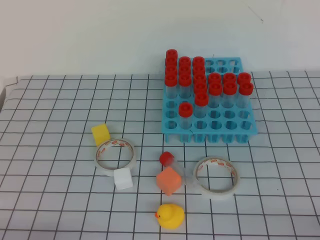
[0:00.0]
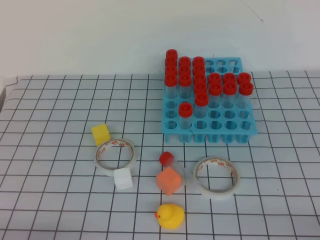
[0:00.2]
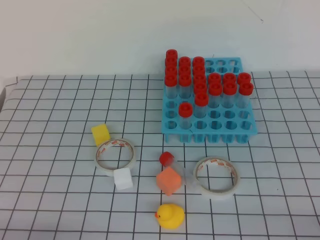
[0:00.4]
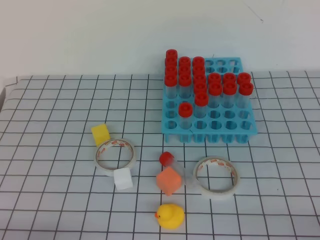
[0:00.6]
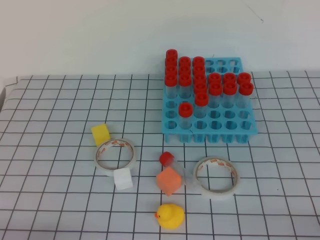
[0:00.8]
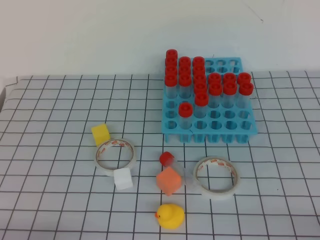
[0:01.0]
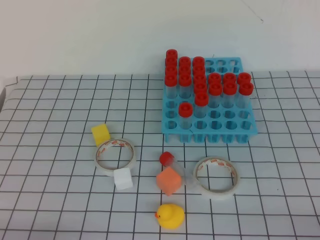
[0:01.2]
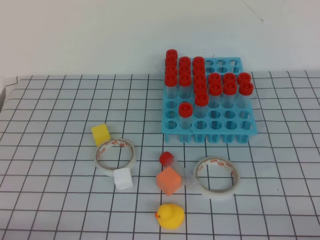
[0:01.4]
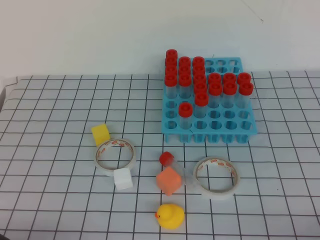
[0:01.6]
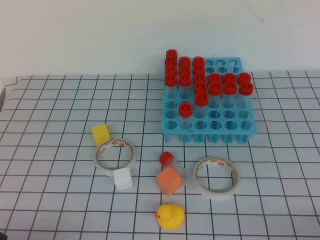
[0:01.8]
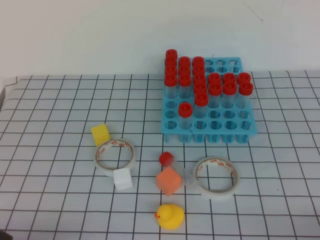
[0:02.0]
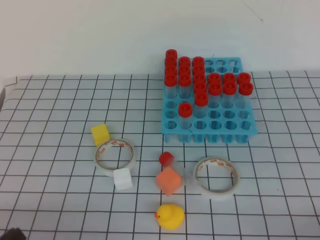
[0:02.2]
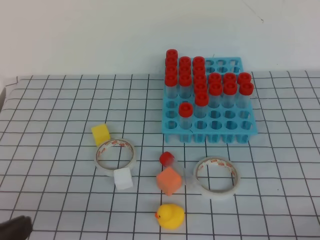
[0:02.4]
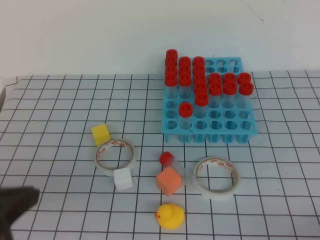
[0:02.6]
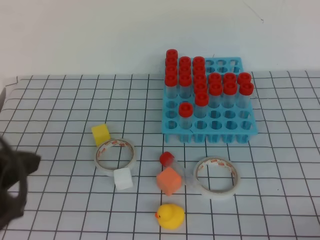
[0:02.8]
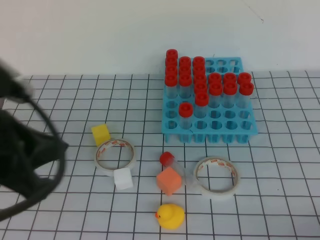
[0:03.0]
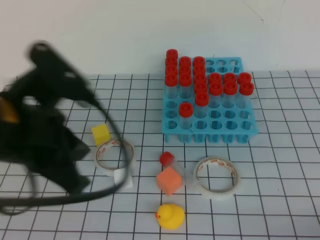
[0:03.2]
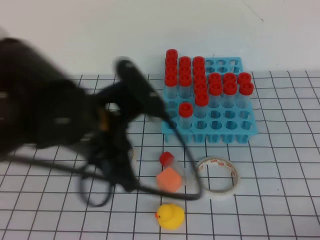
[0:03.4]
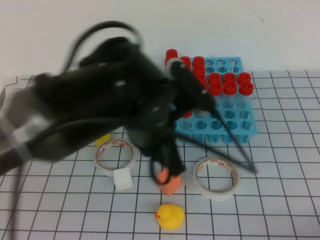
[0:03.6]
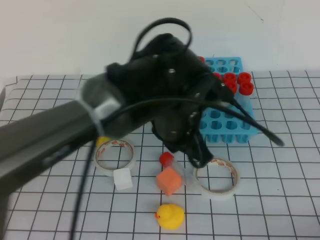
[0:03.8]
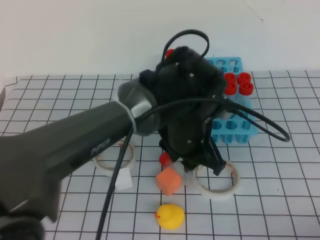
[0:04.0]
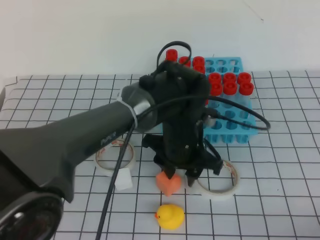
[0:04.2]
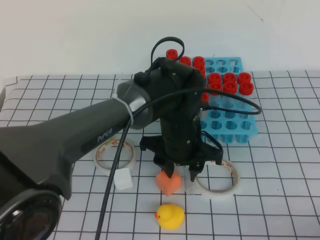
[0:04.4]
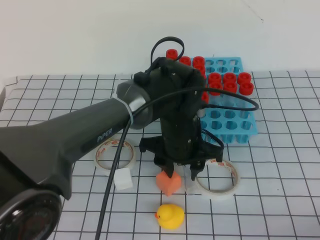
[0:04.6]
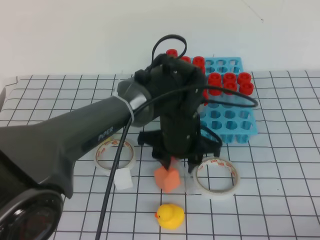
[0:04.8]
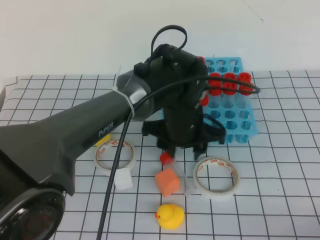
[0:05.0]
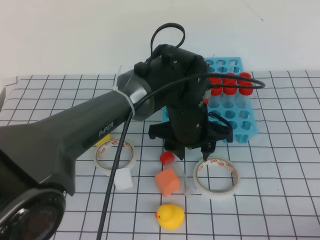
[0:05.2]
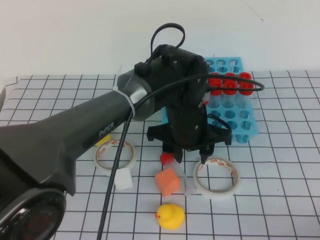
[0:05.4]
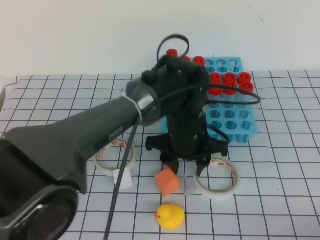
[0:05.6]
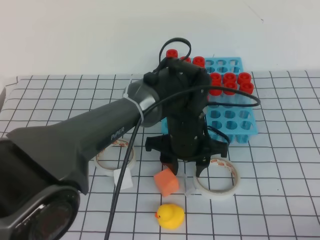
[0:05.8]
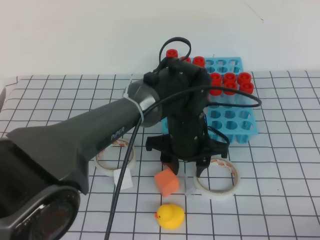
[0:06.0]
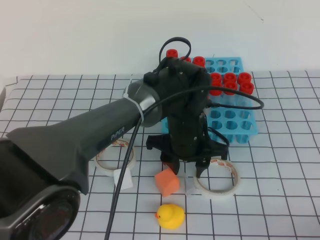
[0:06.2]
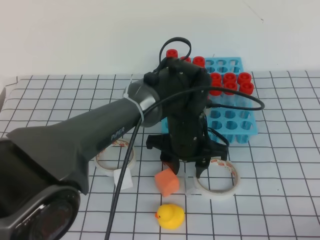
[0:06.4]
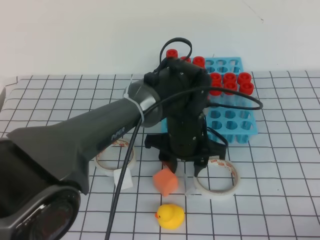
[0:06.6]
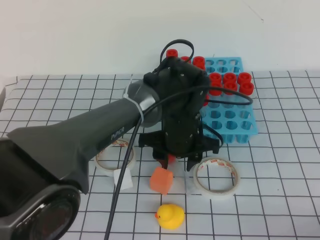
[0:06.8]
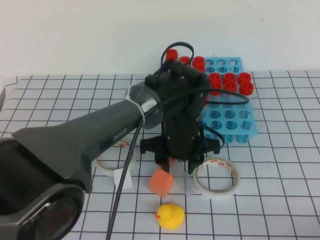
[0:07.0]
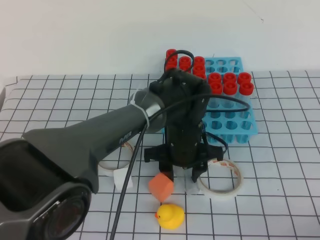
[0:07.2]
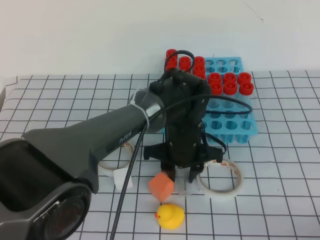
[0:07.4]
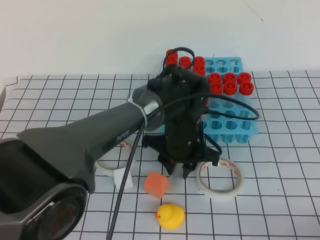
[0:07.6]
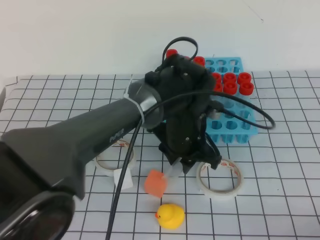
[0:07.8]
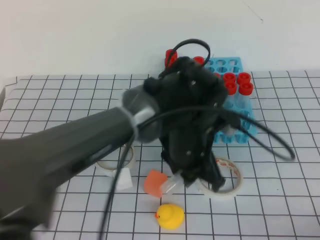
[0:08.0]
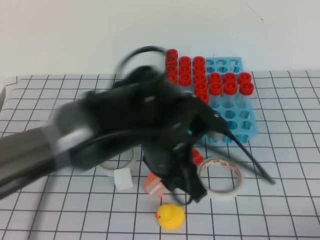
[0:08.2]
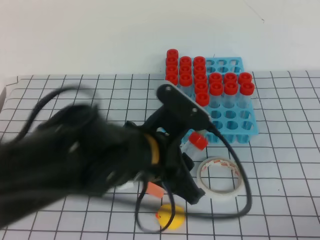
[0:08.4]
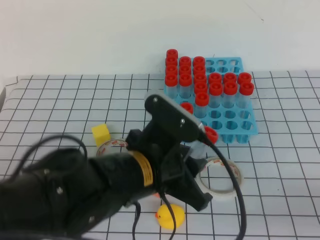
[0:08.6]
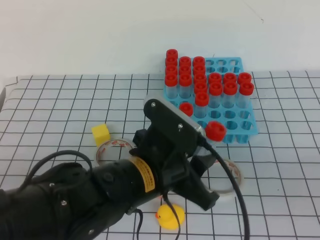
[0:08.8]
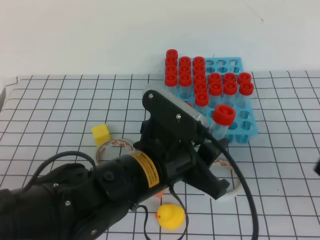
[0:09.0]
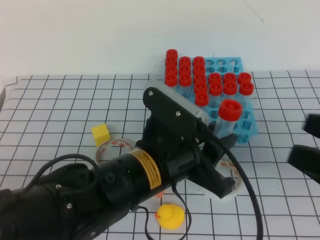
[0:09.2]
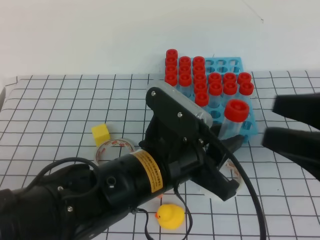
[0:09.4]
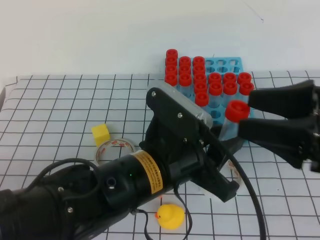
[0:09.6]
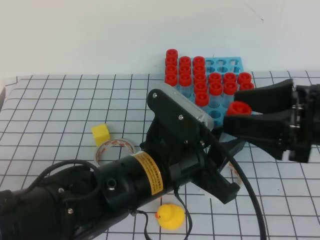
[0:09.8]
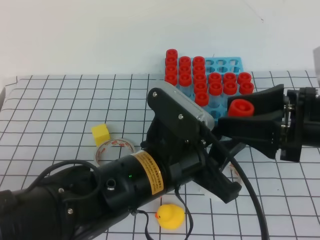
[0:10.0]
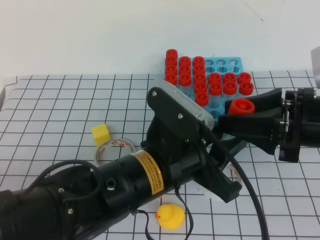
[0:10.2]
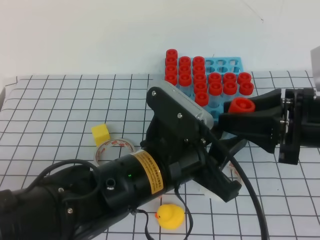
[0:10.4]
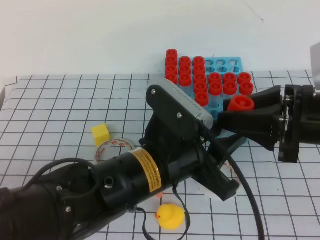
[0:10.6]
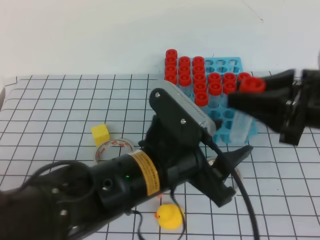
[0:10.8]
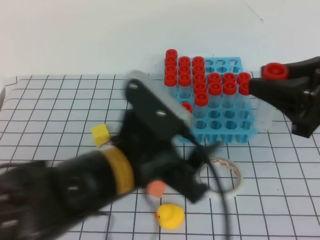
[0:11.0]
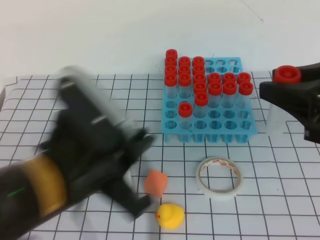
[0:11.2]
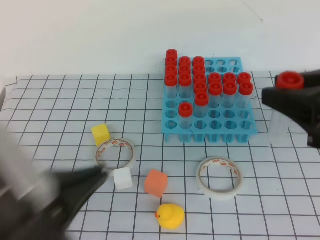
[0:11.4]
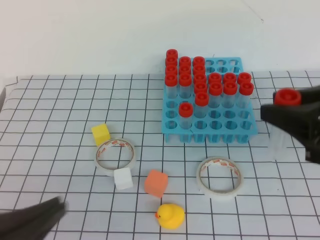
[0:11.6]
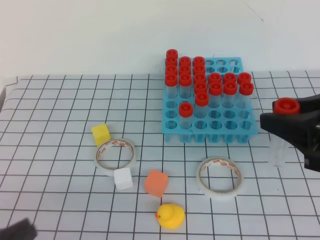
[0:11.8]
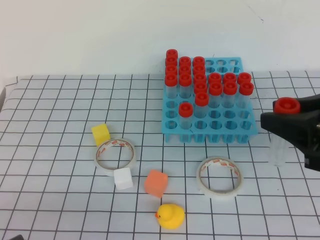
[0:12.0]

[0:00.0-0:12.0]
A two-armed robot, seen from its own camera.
0:01.6 to 0:03.0: The left gripper goes some 20 cm upward and forward.
0:03.0 to 0:04.4: The left gripper goes about 30 cm to the right, forward and downward, and opens.
0:04.4 to 0:06.0: The grippers move only a little.
0:06.0 to 0:07.6: The left gripper closes up.
0:07.6 to 0:09.0: The left gripper heads backward, upward and to the left, covering approximately 15 cm; the right gripper shifts some 10 cm upward and forward, and opens up.
0:09.0 to 0:10.4: The right gripper goes some 15 cm forward and to the left, and opens, then closes again.
0:10.4 to 0:12.0: The right gripper ends up approximately 5 cm from where it was, while the left gripper shifts approximately 30 cm to the left and backward, and closes its fingers.

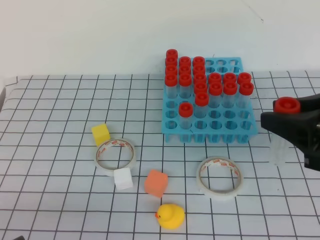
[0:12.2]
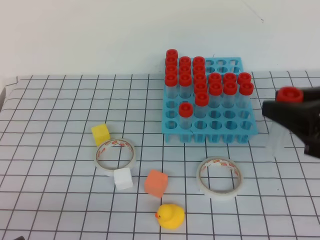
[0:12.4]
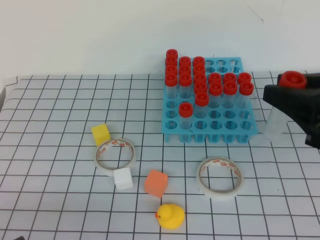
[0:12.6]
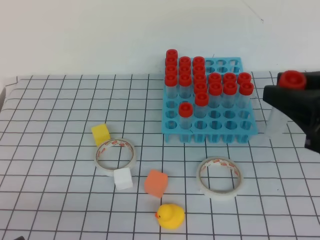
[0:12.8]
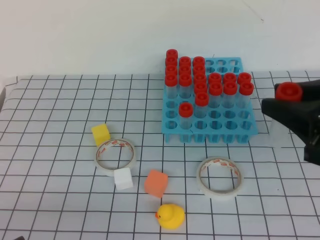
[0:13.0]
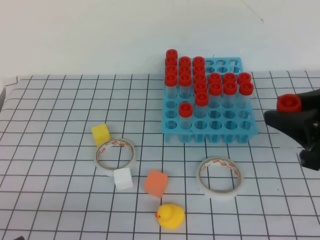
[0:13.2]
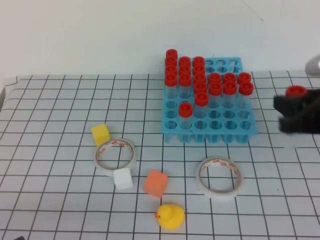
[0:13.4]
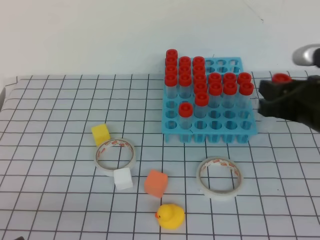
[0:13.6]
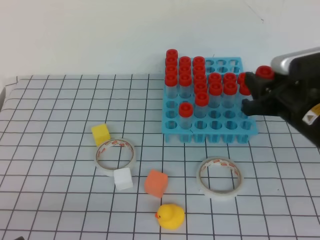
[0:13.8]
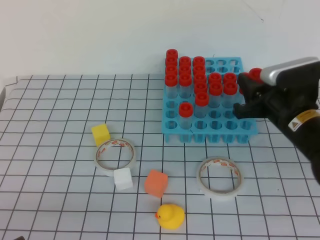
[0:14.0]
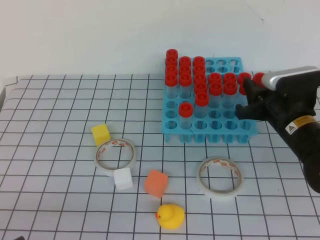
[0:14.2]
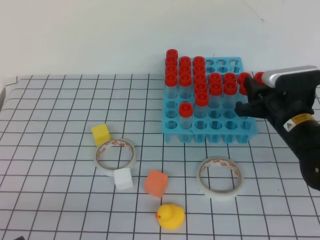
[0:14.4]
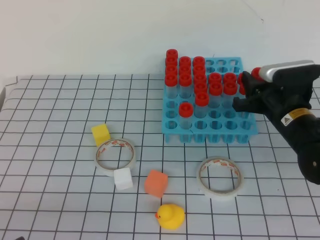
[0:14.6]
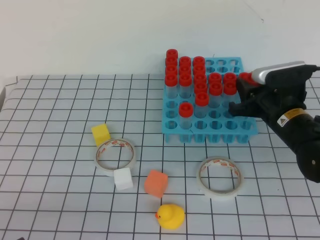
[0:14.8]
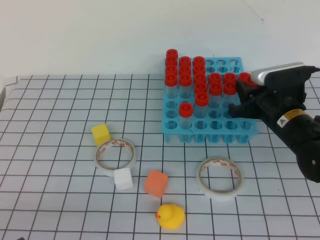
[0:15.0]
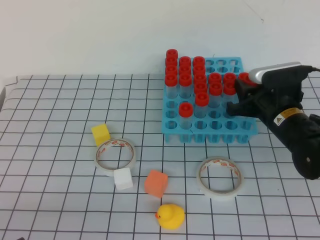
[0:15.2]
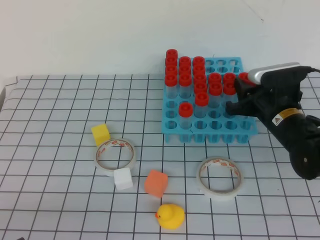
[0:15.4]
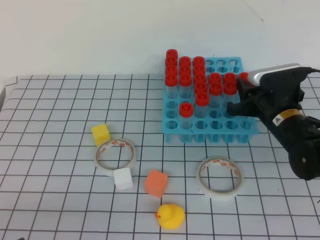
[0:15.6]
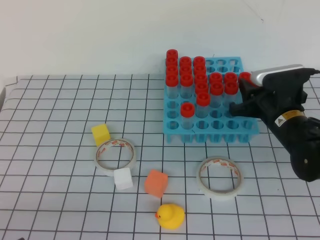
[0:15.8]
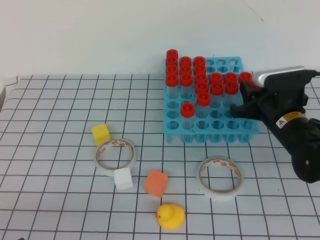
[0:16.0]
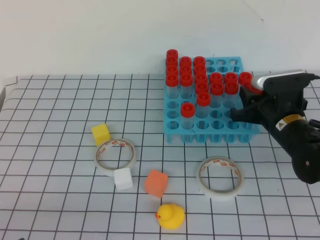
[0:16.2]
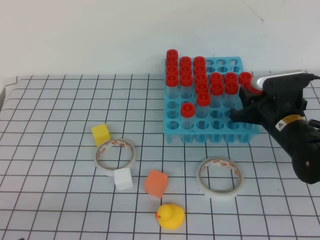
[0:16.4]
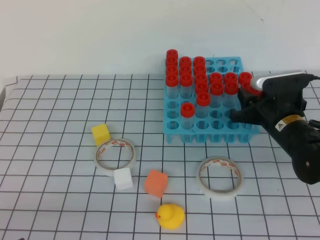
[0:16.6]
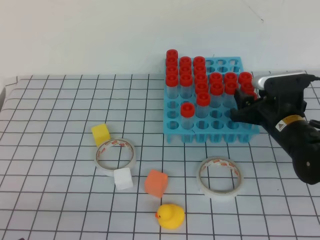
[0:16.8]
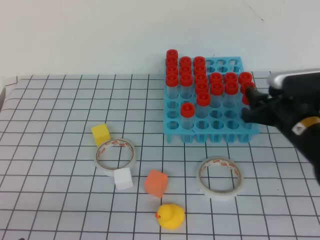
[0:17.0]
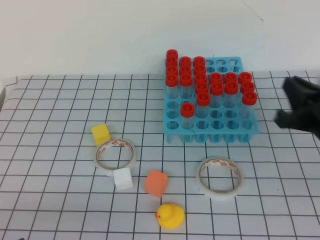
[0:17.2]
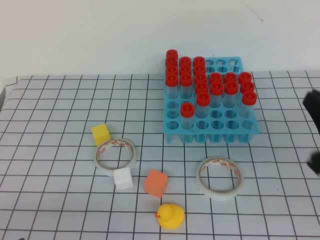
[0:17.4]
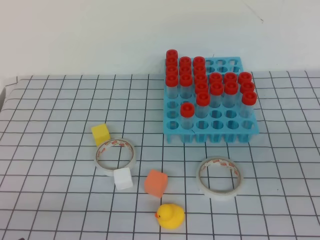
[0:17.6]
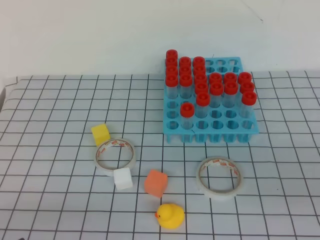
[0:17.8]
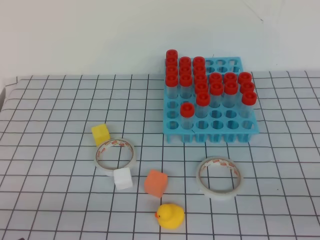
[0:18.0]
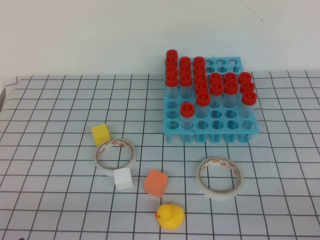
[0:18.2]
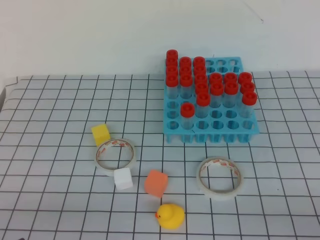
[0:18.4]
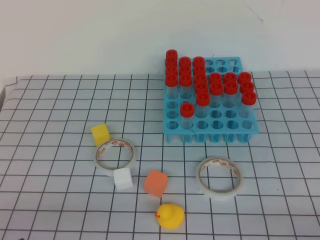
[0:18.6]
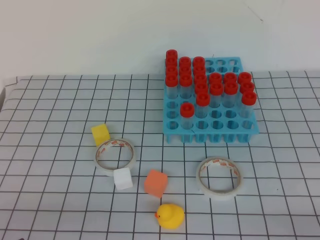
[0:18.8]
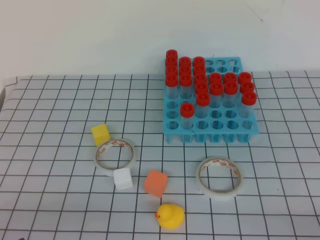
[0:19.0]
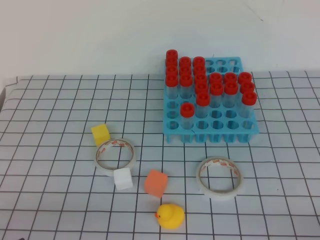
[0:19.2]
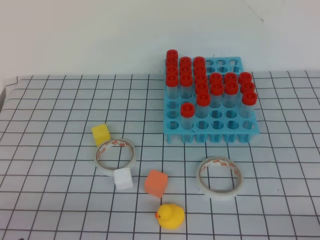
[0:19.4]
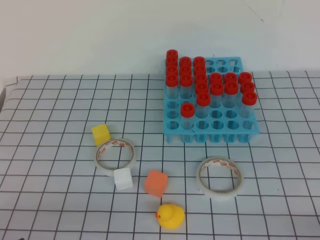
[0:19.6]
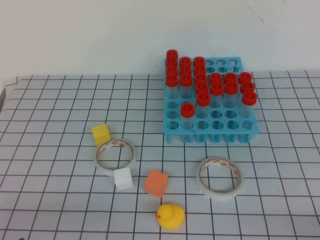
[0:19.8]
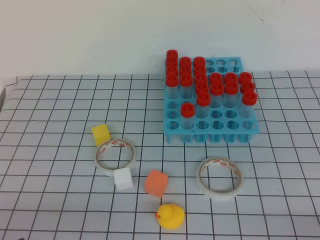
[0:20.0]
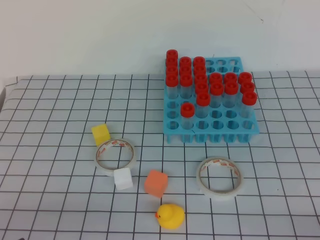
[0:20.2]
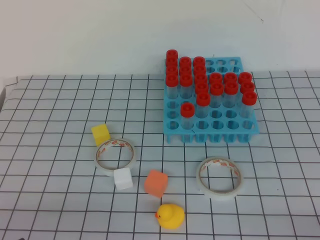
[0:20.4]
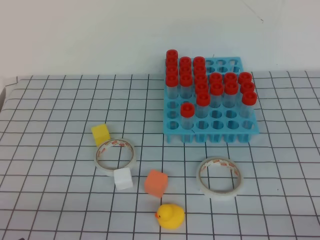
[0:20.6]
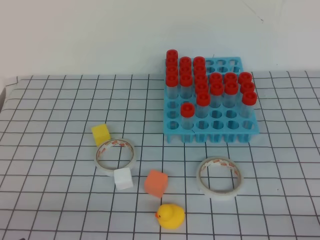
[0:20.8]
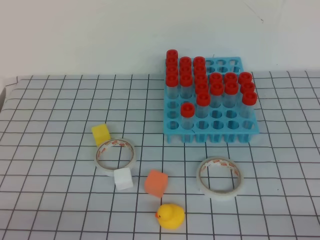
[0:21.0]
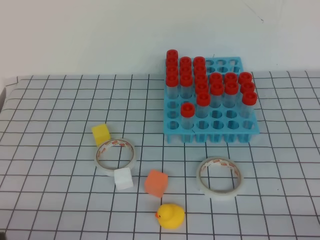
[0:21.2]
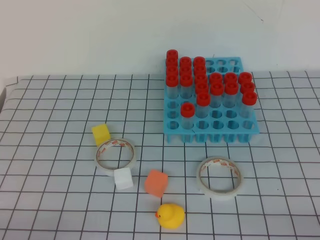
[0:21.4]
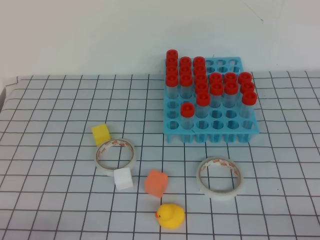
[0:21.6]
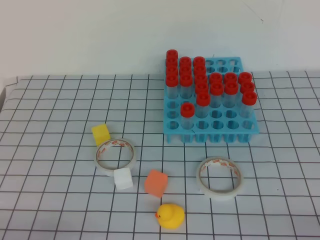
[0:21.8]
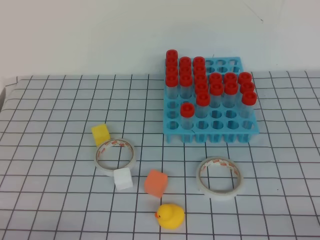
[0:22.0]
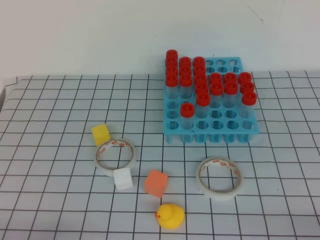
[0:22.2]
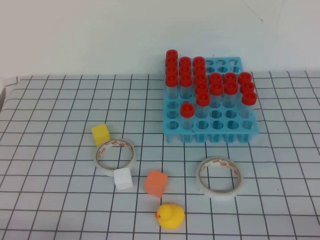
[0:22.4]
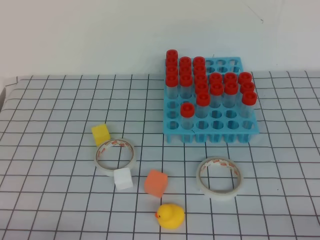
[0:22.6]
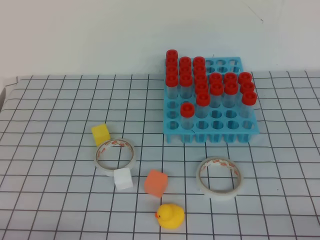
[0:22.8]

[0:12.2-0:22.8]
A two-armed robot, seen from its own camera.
0:12.2 to 0:13.8: The right gripper heads forward and downward, covering approximately 10 cm.
0:13.8 to 0:15.2: The right gripper goes roughly 10 cm downward and forward.
0:15.2 to 0:16.8: Both grippers stay put.
0:16.8 to 0:18.2: The right gripper shifts some 30 cm backward, and closes.
